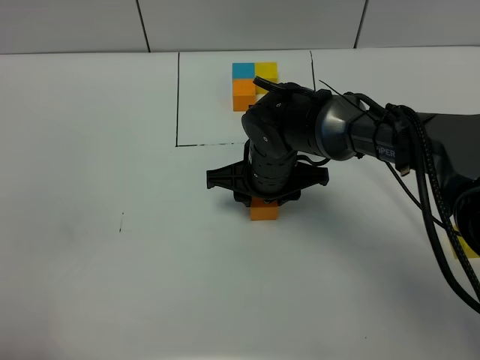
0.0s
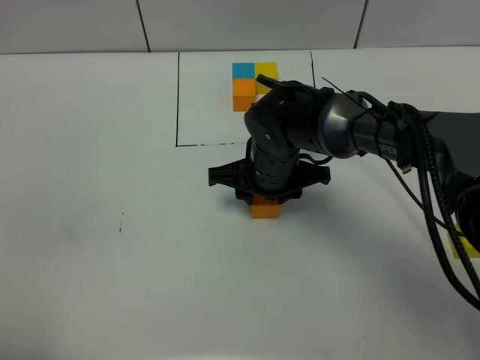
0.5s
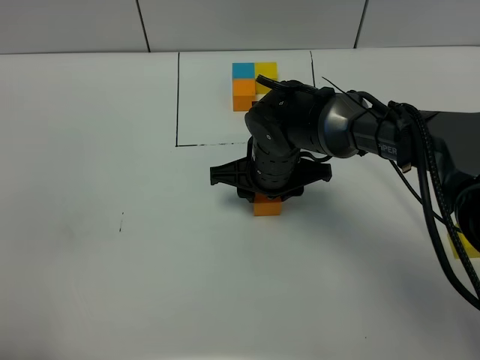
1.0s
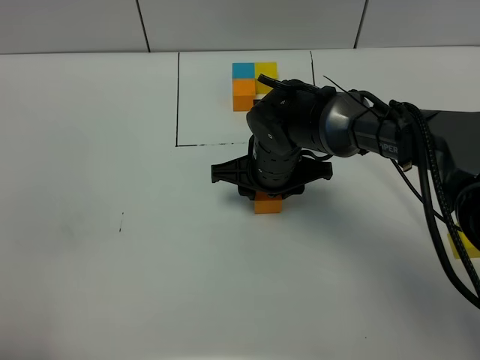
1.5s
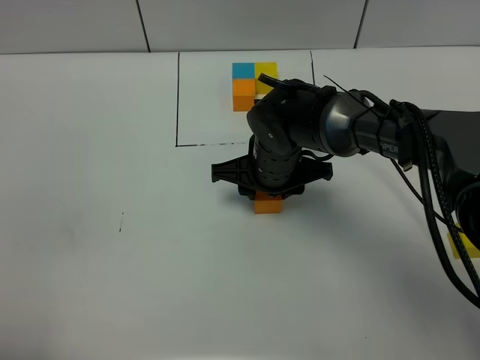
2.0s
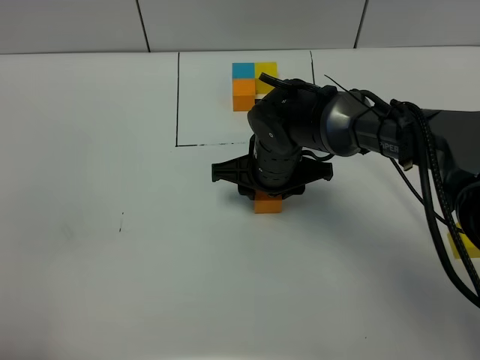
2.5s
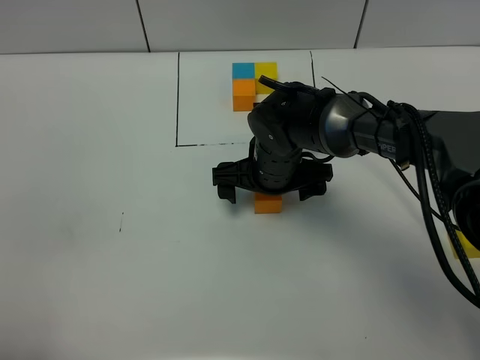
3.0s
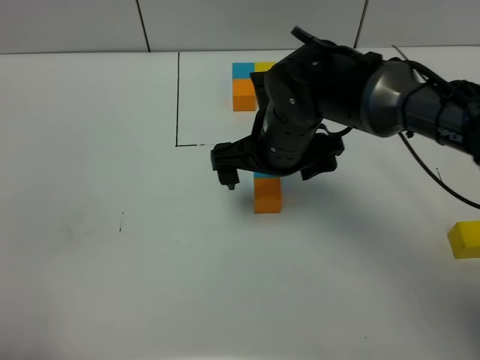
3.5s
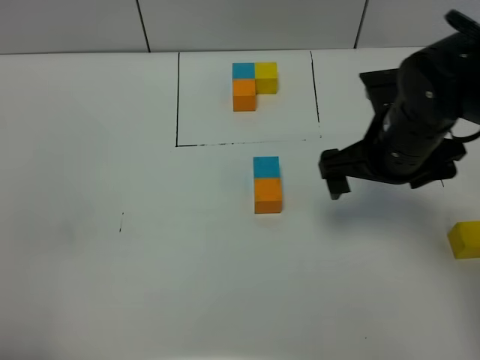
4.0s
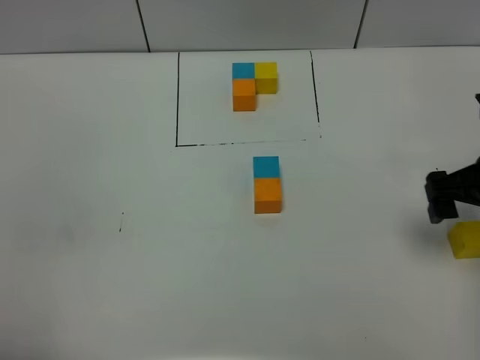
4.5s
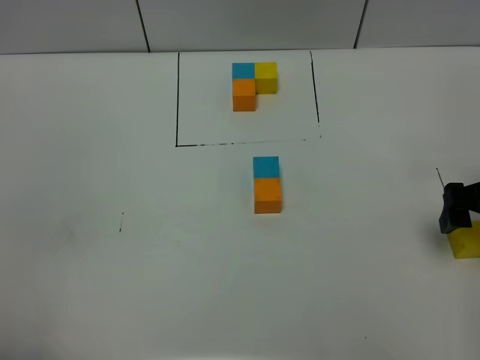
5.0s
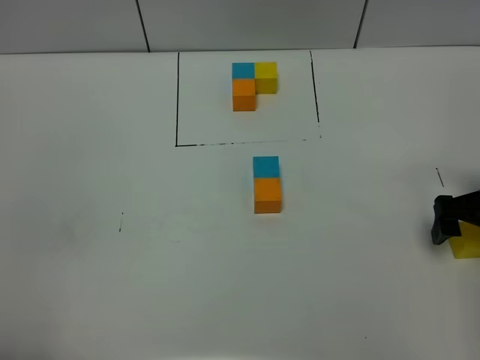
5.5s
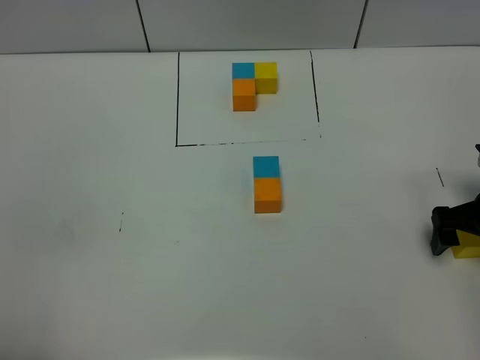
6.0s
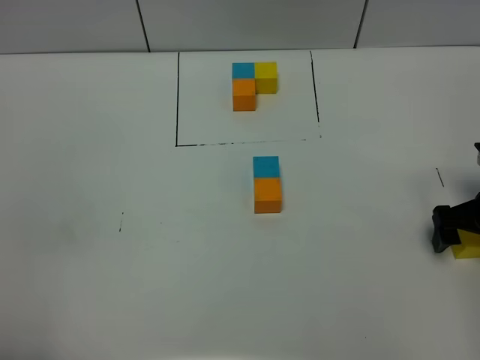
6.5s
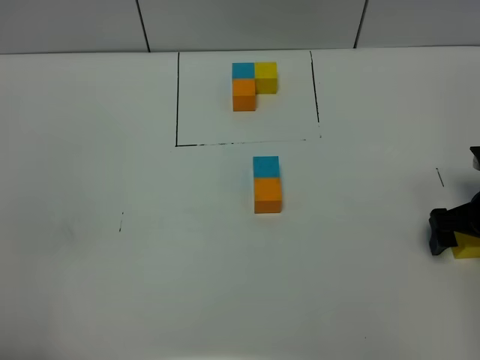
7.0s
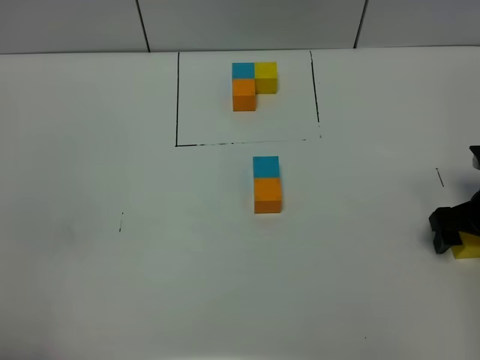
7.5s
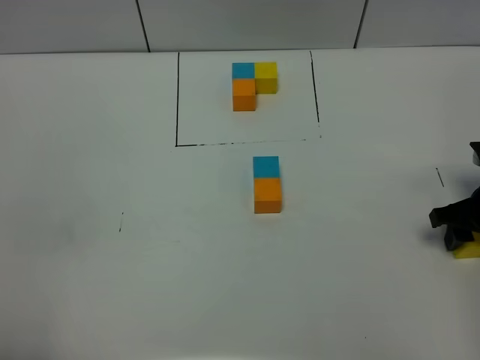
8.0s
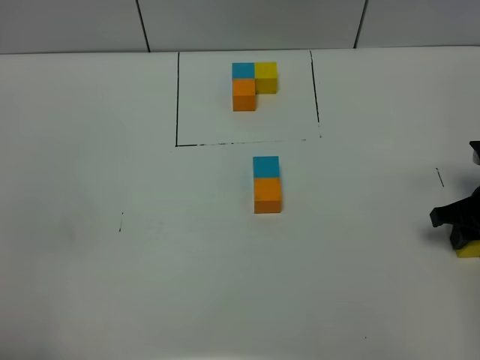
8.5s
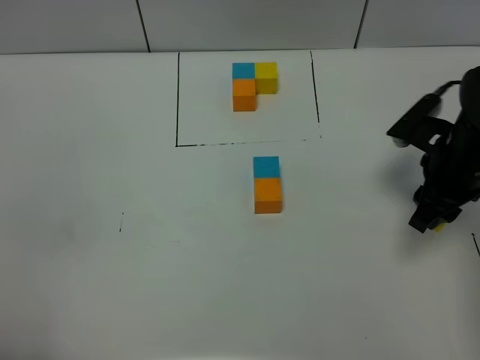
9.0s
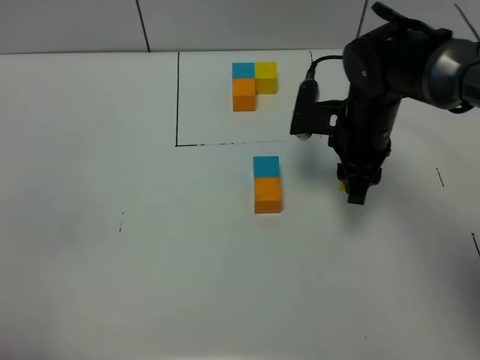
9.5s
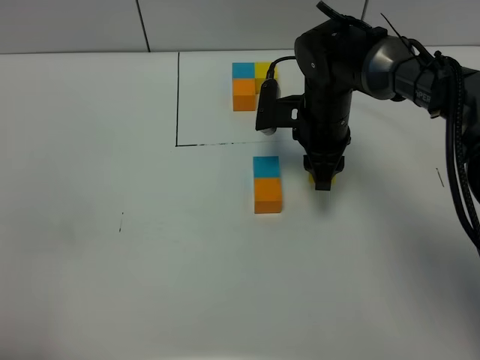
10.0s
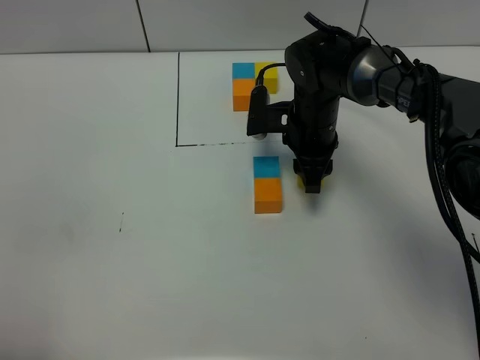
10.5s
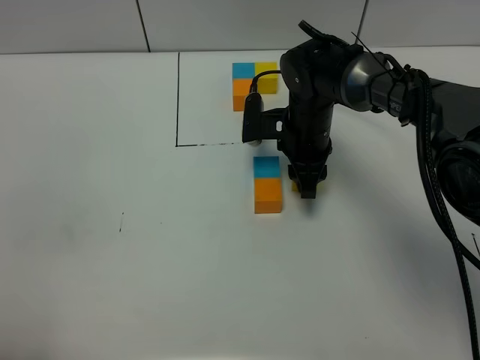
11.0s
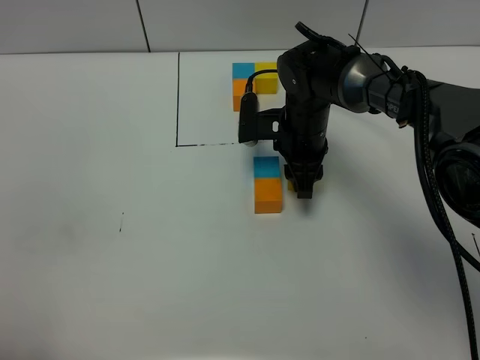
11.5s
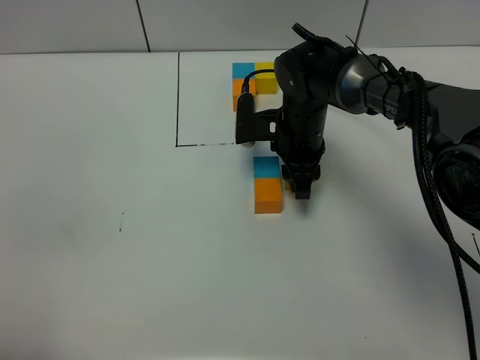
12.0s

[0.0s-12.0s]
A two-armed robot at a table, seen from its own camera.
Task of the whole recording: According to the building block template in front, assemble the scattered blocks together.
Step, 0.0s to 2.5s: Put the ornage build block on the behind of the blue build block.
0.0s to 2.0s: Both grippers stay about where they are.
2.0s to 4.0s: The right gripper travels to the right, upward and backward by about 20 cm, and opens.
4.0s to 6.0s: The right gripper travels to the right and downward by some 15 cm.
6.0s to 8.0s: The right gripper closes its fingers.
8.0s to 10.0s: The right gripper is displaced to the left and forward by about 25 cm.
10.0s to 12.0s: The grippers stay close to where they were, moving slightly.

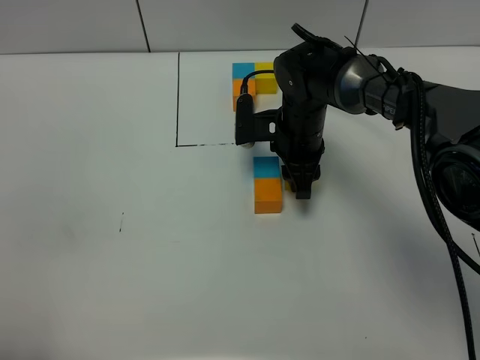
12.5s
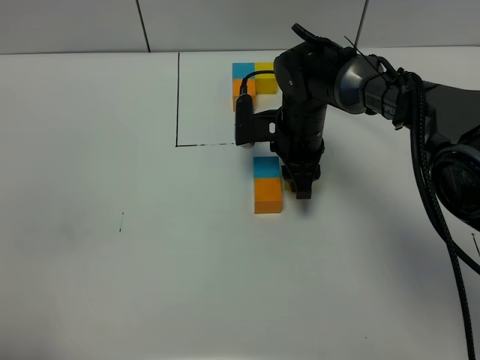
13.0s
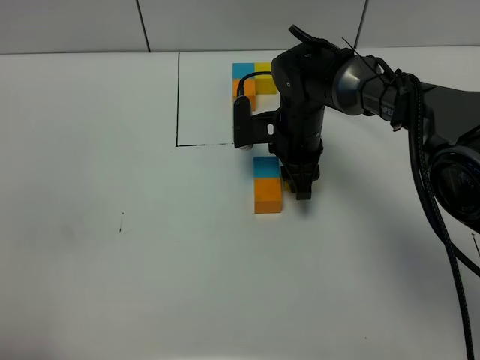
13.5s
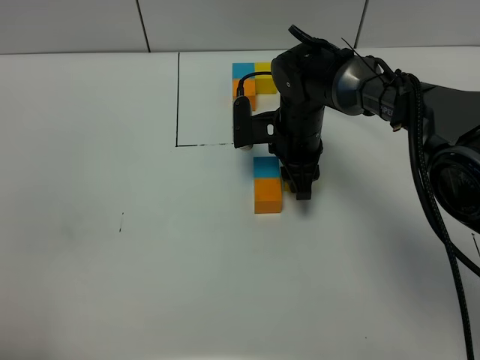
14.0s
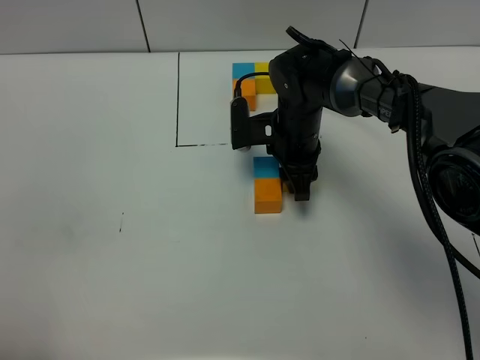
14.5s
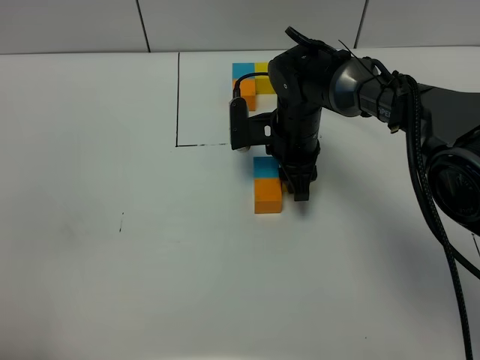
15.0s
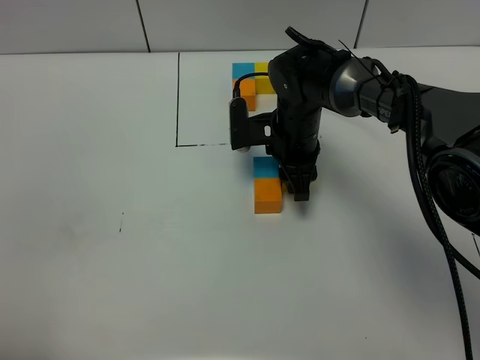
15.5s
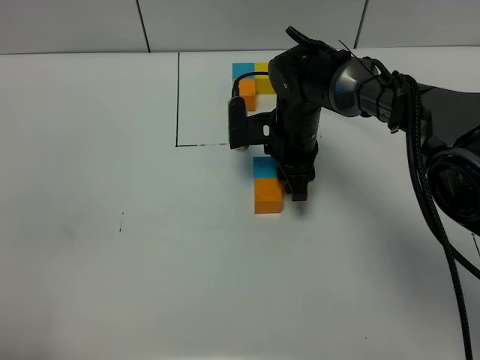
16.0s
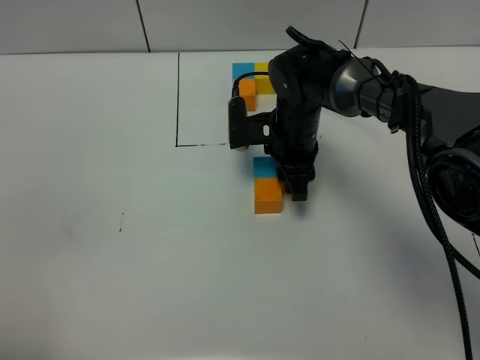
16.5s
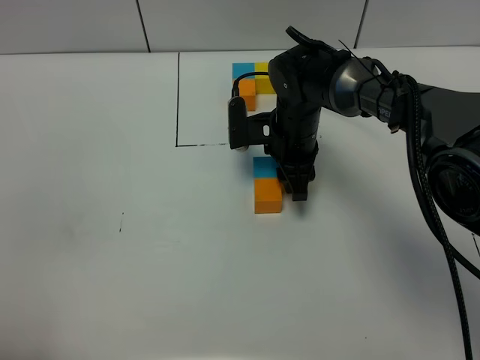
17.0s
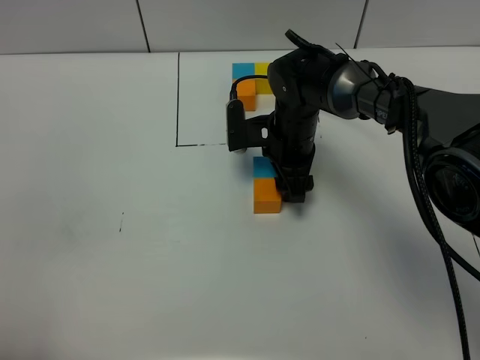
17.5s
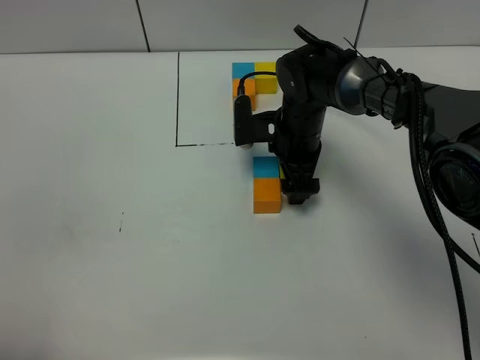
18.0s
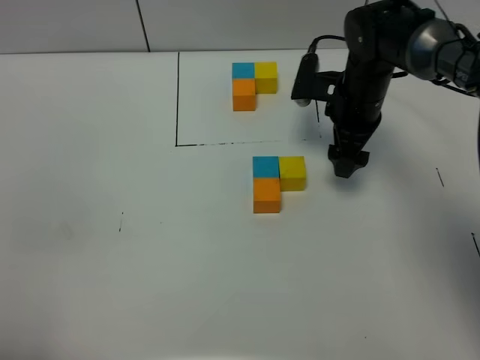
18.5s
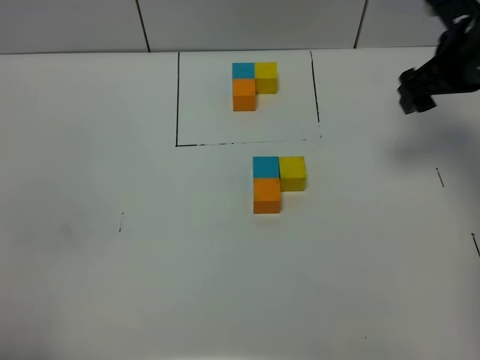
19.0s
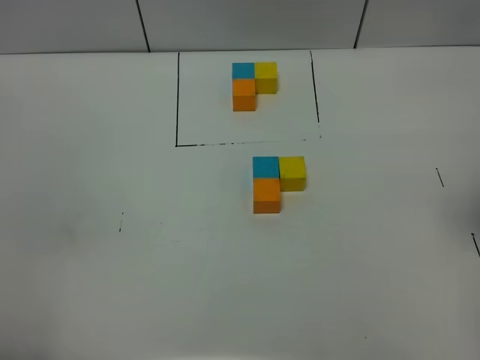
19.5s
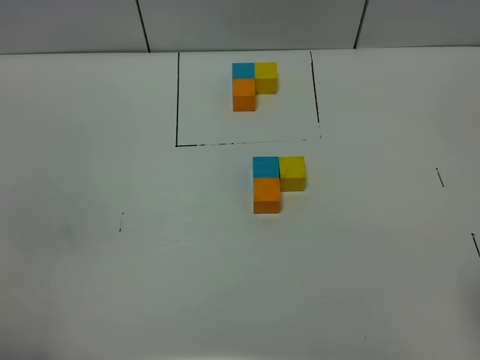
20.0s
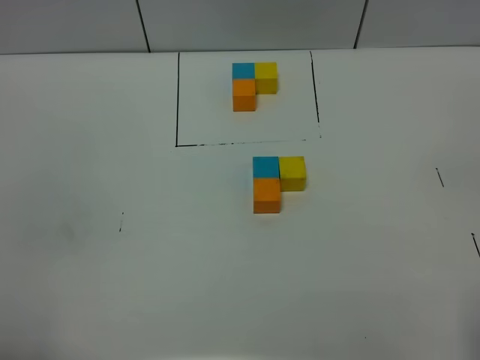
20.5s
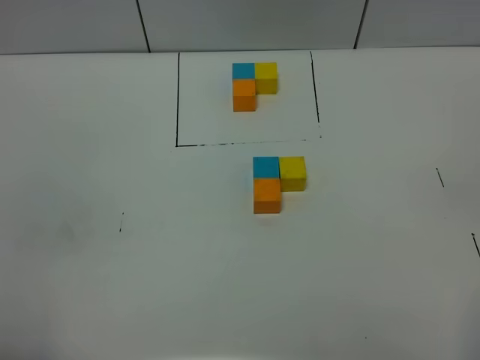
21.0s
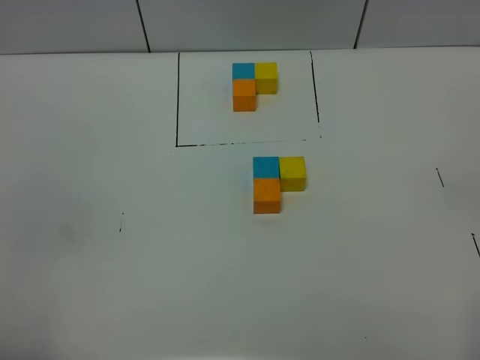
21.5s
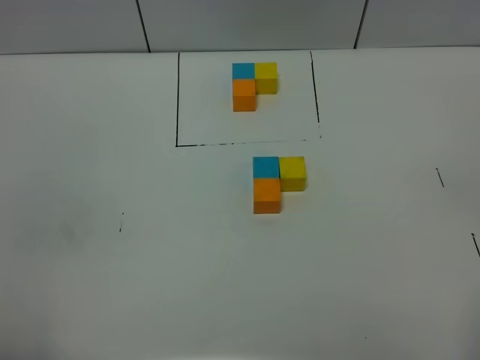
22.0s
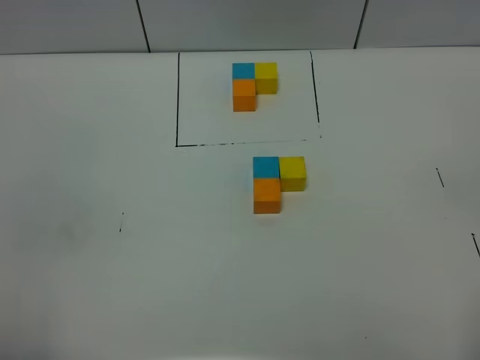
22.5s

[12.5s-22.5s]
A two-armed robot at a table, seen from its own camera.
Task of the whole recording: According to the building block template in front, assemble the scattered blocks together.
Step, 12.5s to 17.5s: Put the yellow build block on the right of the blue build block.
12.5s to 16.5s: Both grippers stay put.
16.5s to 18.5s: The right gripper is displaced to the right by roughly 10 cm, and opens up.
18.5s to 20.5s: The right gripper heads backward, covering about 40 cm.

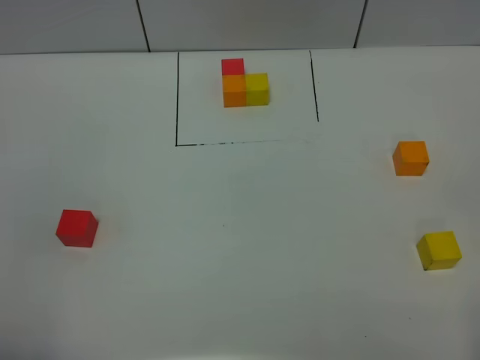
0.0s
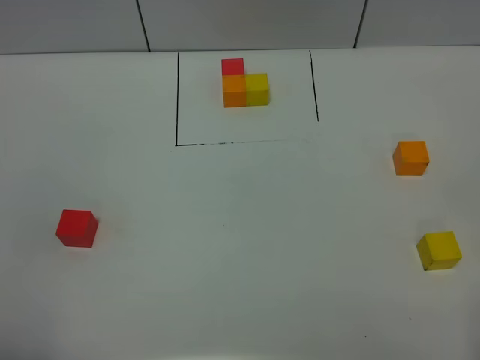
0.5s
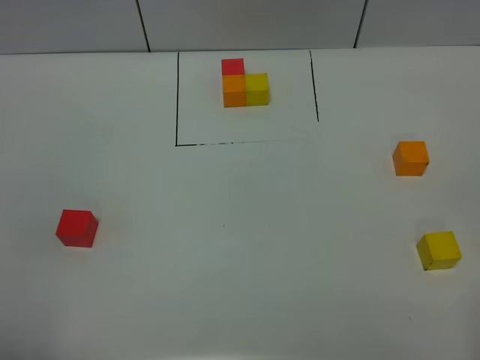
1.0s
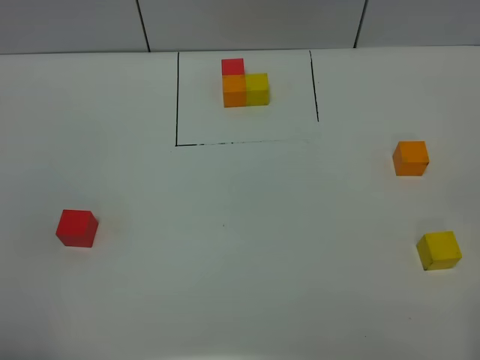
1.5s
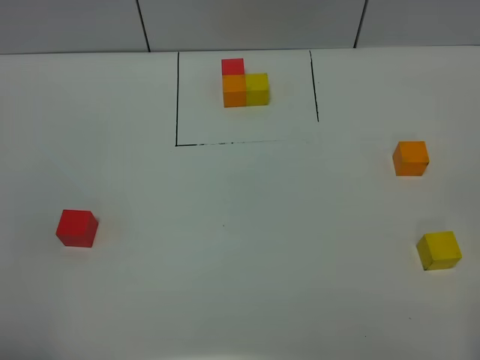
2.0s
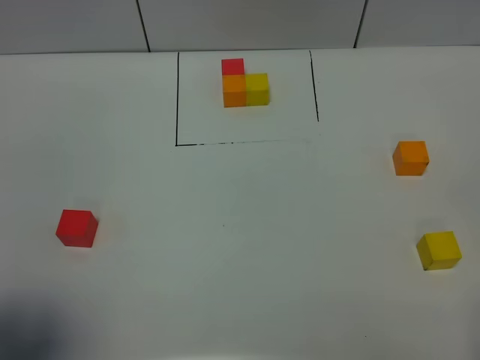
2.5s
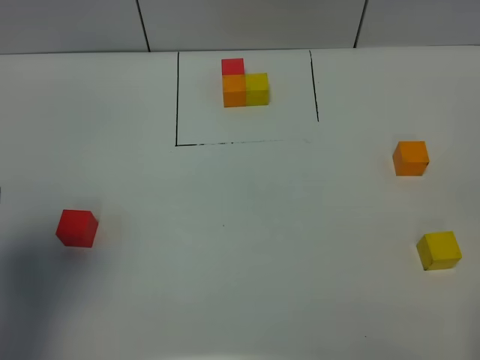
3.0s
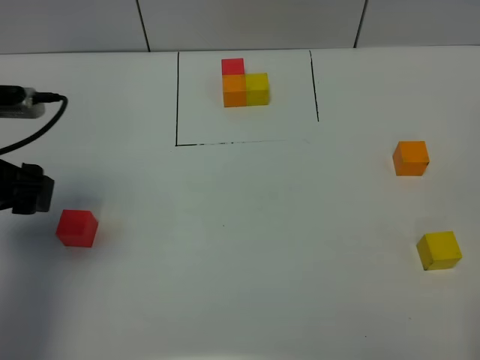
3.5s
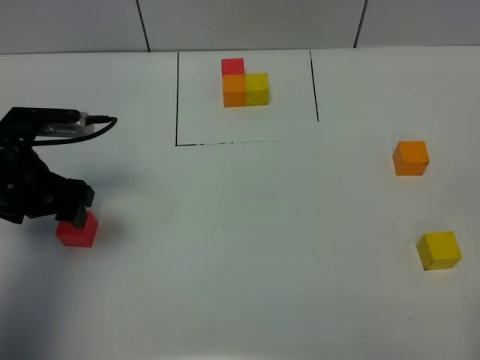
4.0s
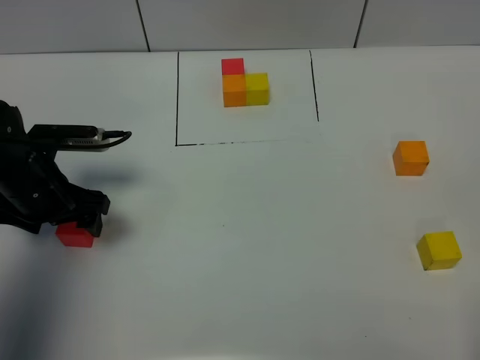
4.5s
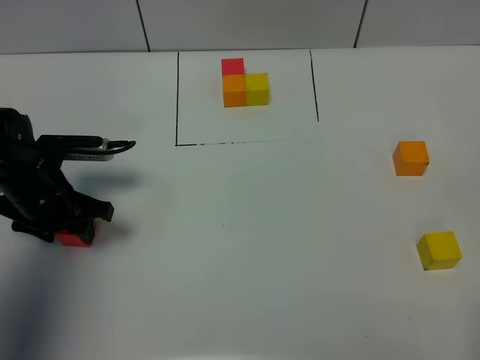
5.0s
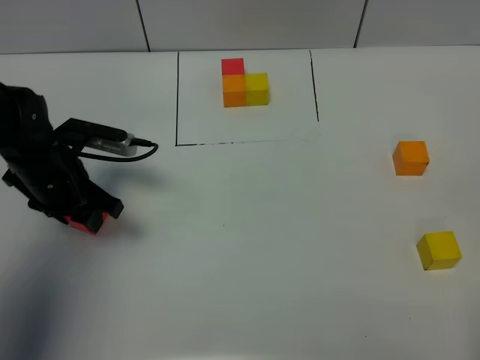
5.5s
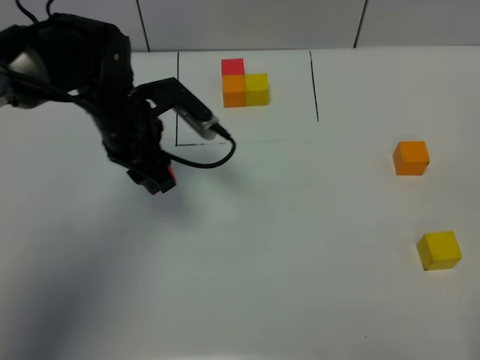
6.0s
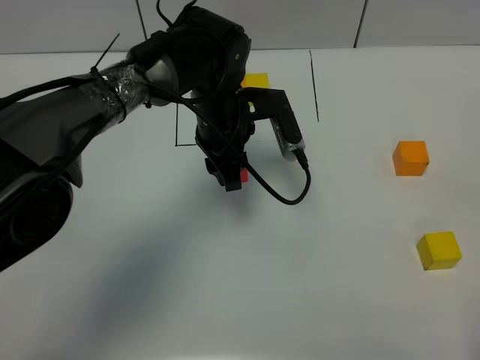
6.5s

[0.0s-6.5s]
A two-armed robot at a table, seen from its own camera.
Task of the whole recording: According to the building block template in front, assemble the scattered blocks together.
0.0s to 2.0s: Neither gripper changes place.
2.0s to 4.5s: The left gripper shifts about 35 cm forward and downward.
4.5s to 6.5s: The left gripper is displaced to the right by roughly 25 cm, and closes up.
